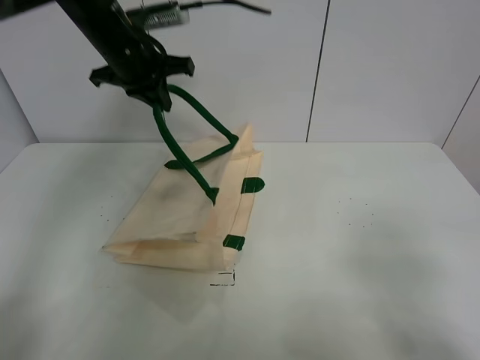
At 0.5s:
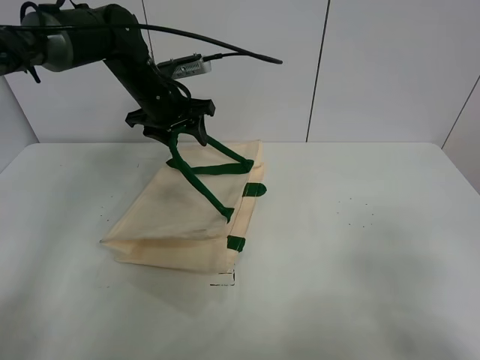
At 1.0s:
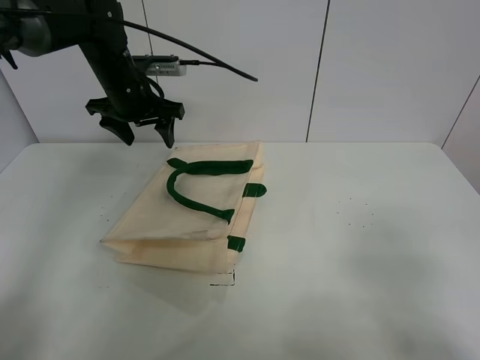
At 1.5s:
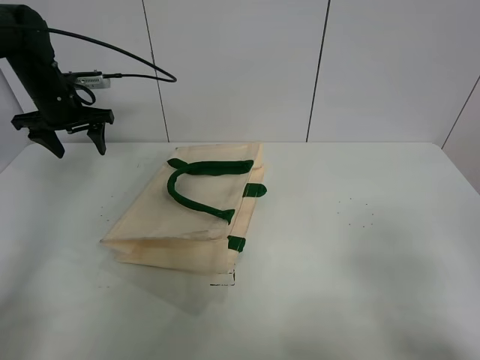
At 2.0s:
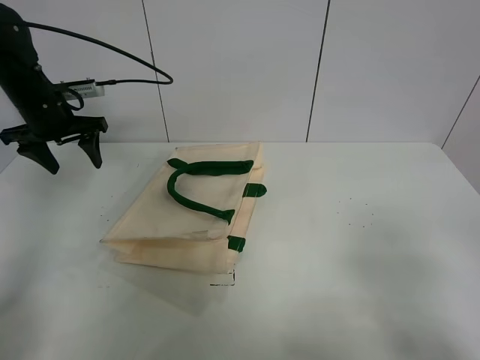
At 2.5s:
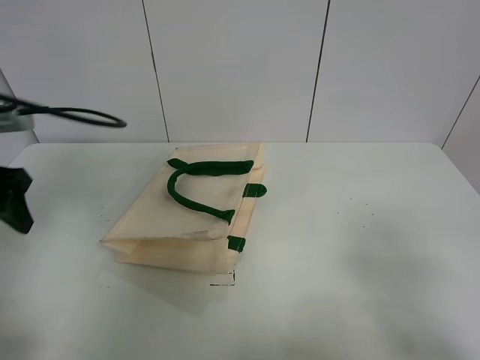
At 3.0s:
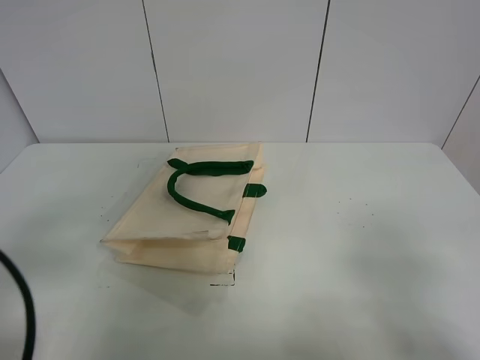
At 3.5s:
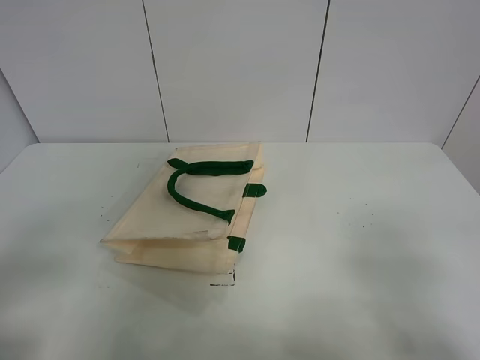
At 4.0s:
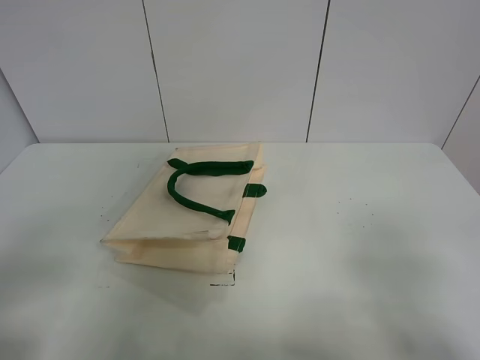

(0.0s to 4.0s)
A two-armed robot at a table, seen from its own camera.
Task of the whole recording: open the white linen bag and put the orange in the bag.
0.0s - 2.0s: The left gripper shifts about 15 cm to the left and downward, and opens up.
2.0s - 4.0s: The left gripper shifts about 40 cm backward.
